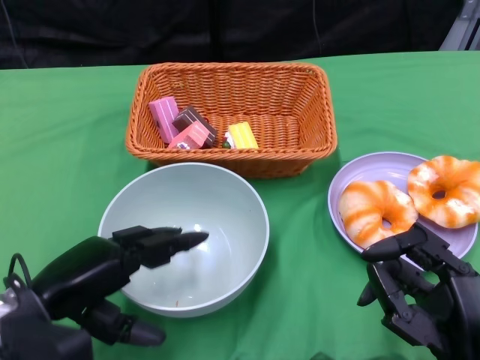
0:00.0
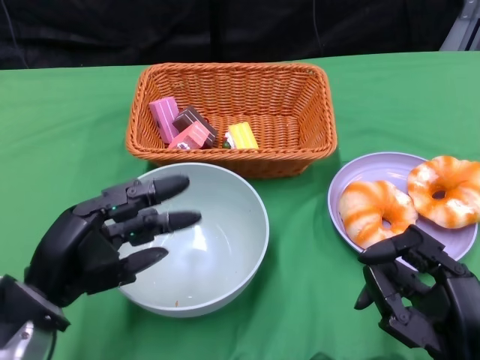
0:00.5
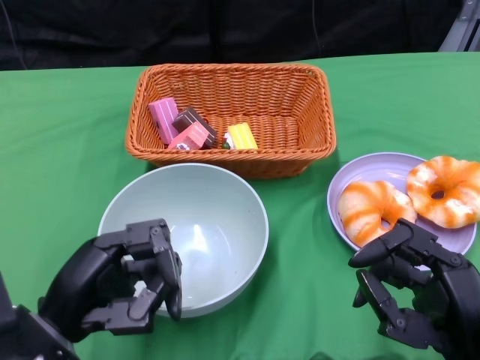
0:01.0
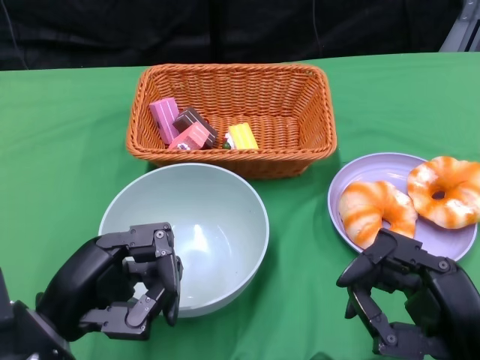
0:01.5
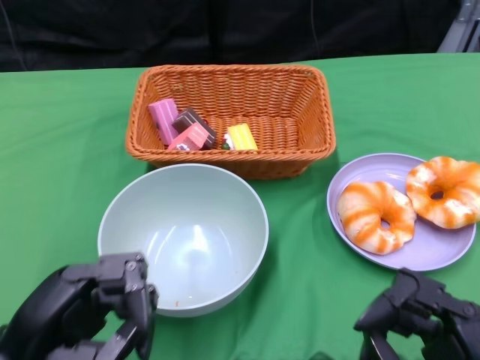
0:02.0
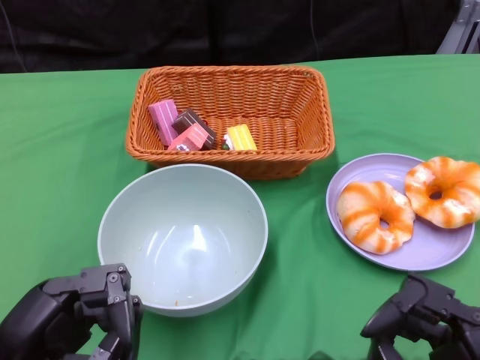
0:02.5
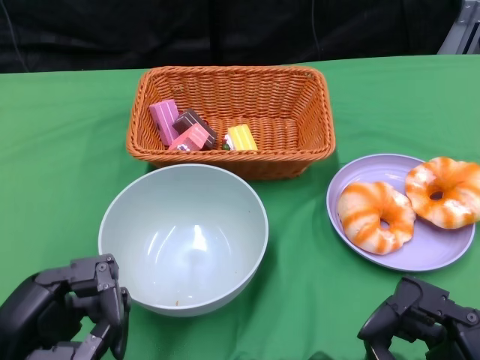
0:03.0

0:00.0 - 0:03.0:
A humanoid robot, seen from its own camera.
0:01.5 - 0:03.0: The left hand moves about 5 cm.
